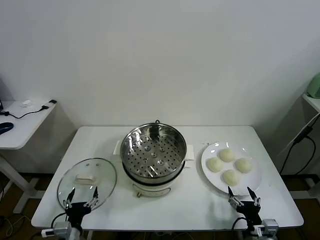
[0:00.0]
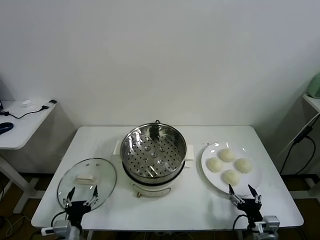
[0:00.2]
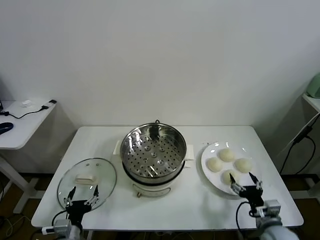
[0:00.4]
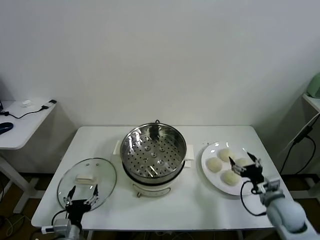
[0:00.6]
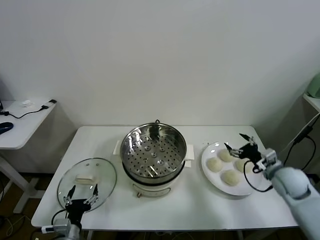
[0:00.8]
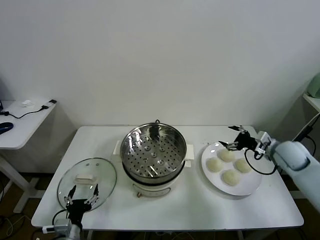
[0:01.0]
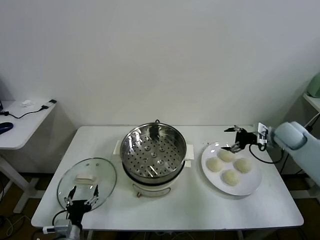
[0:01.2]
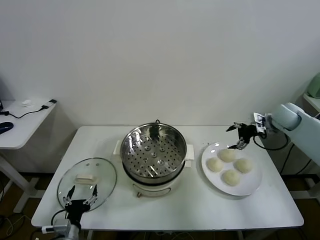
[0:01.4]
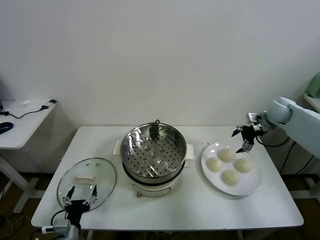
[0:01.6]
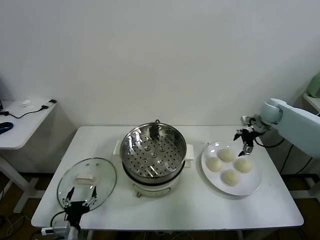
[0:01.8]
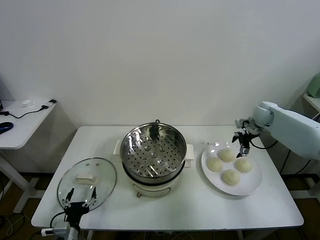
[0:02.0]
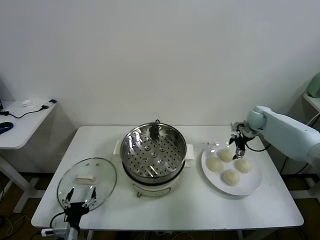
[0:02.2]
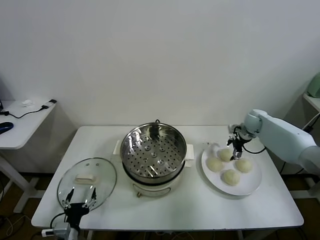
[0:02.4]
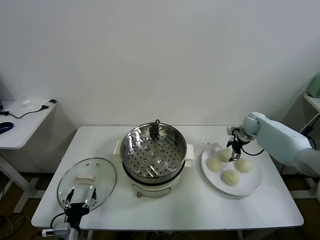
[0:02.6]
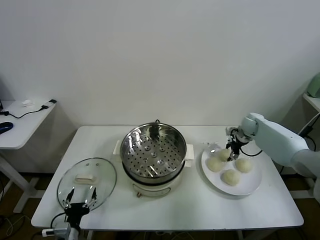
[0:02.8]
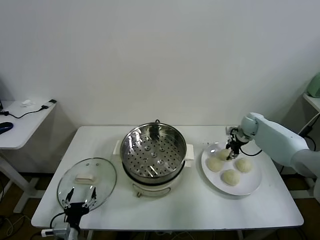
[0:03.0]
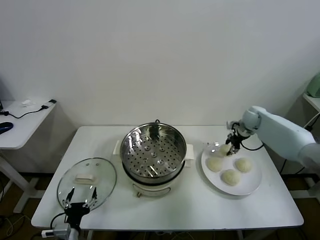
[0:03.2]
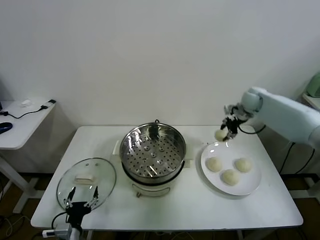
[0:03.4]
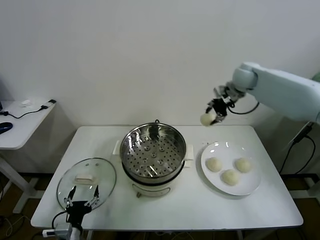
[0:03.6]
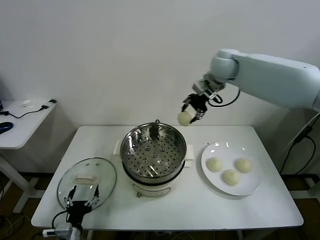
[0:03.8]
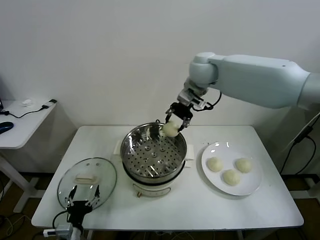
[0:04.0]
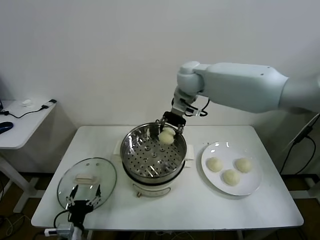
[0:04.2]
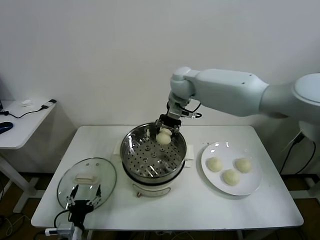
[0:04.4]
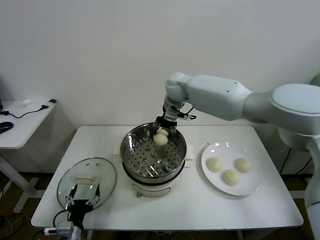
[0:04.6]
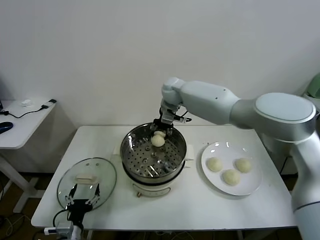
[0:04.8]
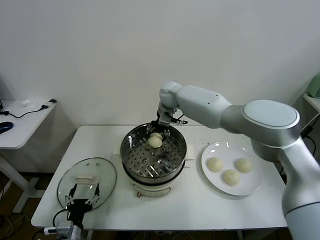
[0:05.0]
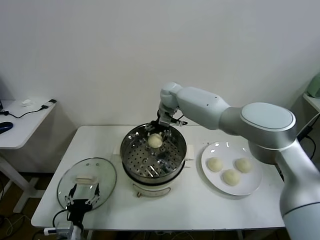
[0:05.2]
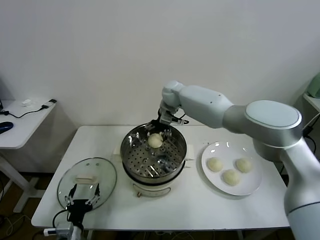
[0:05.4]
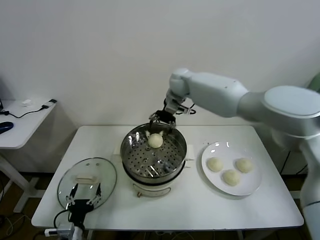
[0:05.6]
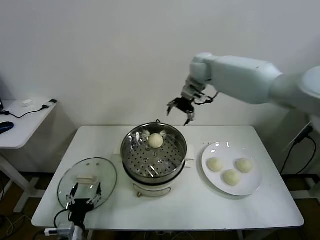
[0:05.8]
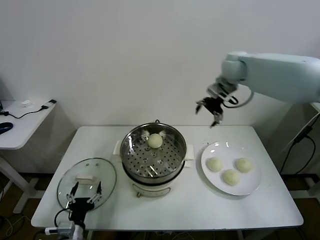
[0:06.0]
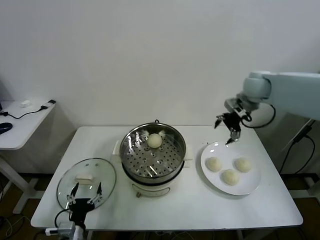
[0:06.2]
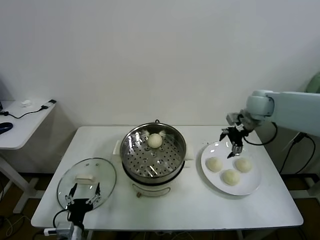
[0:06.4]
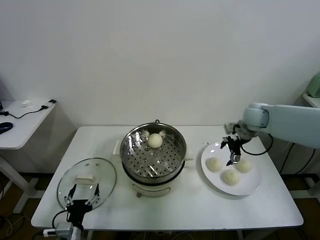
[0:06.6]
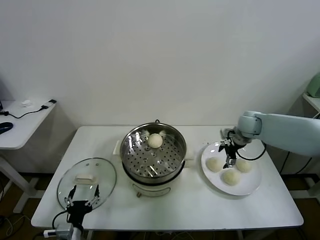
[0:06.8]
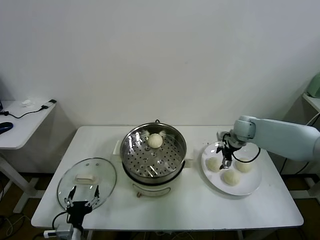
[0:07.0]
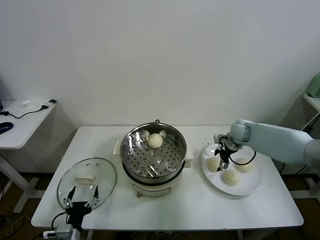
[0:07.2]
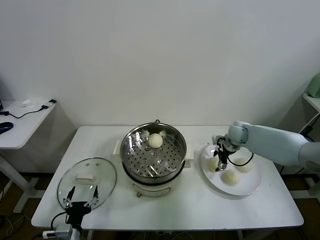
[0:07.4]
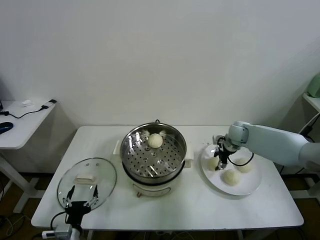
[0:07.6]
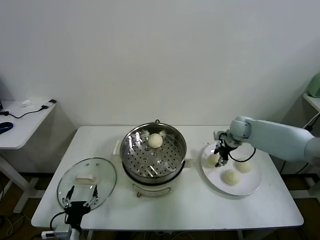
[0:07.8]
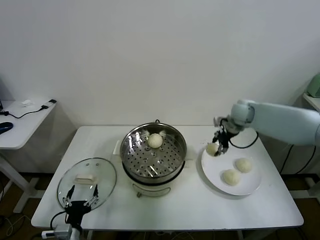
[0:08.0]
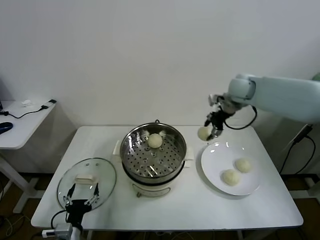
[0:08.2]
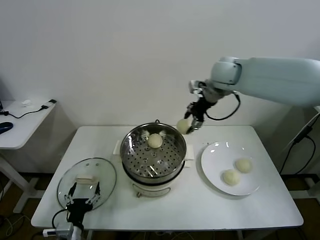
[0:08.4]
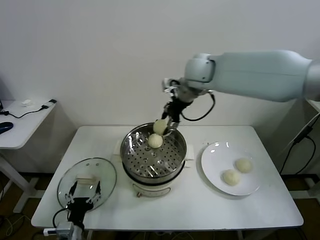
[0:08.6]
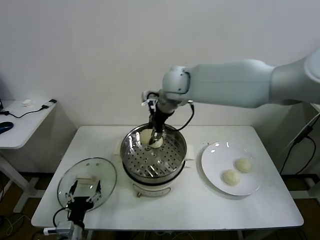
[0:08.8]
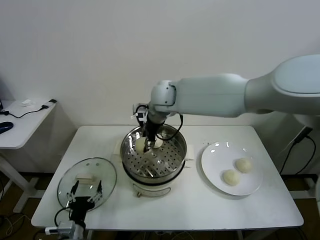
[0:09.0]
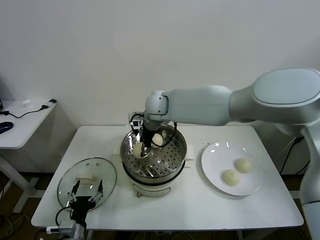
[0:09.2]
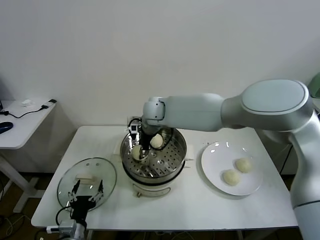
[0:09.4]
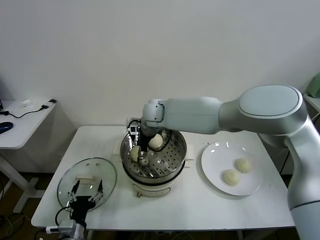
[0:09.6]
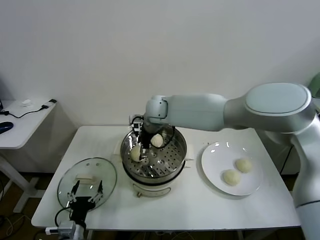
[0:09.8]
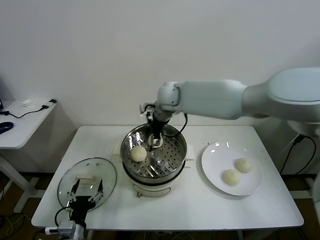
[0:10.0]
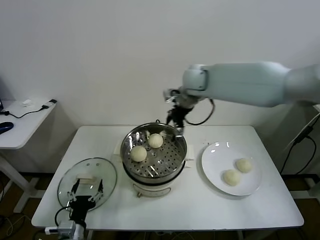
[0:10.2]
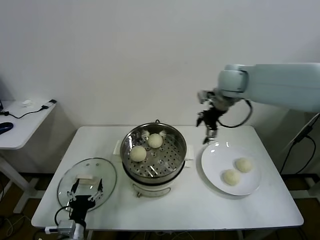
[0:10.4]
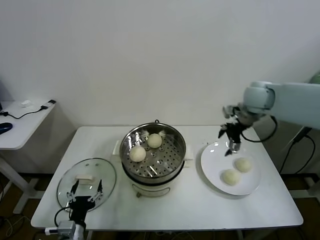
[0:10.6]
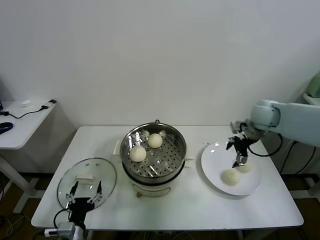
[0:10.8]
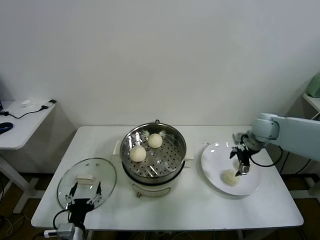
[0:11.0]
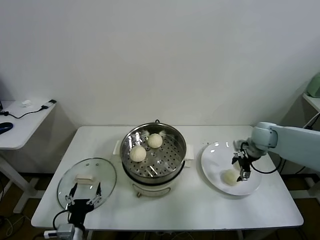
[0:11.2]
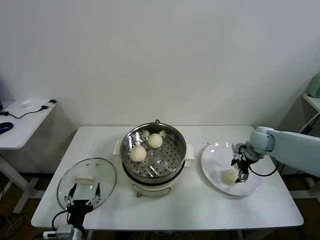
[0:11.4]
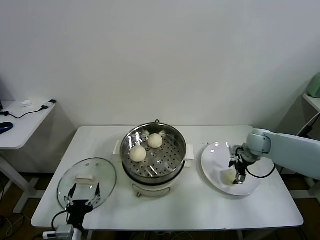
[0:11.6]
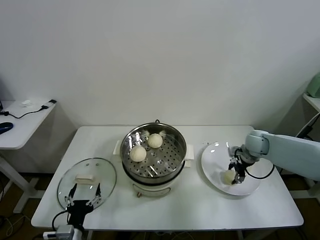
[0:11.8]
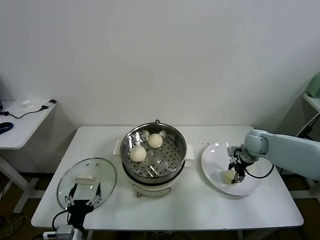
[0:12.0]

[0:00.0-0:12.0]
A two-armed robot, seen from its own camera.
Task of the whole recording: take steamed baozi put them in steamer.
Step, 0:00.0 to 0:02.8: Grasp the baozi in the plate with right gripper.
Step, 0:03.2 to 0:05.0: Place the baozi on the steamer with right gripper.
Step, 0:05.2 to 0:07.6: Grasp the baozi in the plate with right gripper.
Step, 0:07.8 to 0:09.6: Place the baozi on the steamer with right gripper.
Step, 0:09.8 to 0:11.8: Grasp the baozi in the plate with right gripper.
0:01.6 to 0:03.0: The right gripper goes roughly 10 cm downward, and closes its fingers.
0:03.0 to 0:04.4: The right gripper heads to the left and upward, covering approximately 35 cm.
0:04.4 to 0:06.0: The right gripper heads to the right, covering some 20 cm, and opens up.
0:06.0 to 0:07.6: The right gripper goes roughly 25 cm downward, and closes.
0:07.6 to 0:09.0: The right gripper goes approximately 35 cm to the left and upward.
0:09.0 to 0:10.4: The right gripper goes some 25 cm to the right, and opens up.
0:10.4 to 0:12.0: The right gripper is displaced downward and to the right by approximately 25 cm, and closes.

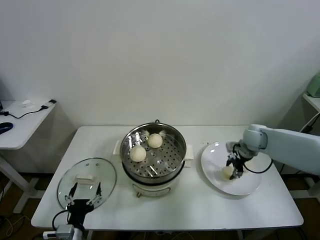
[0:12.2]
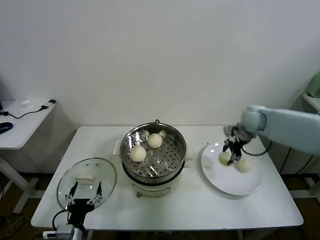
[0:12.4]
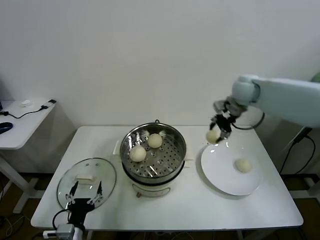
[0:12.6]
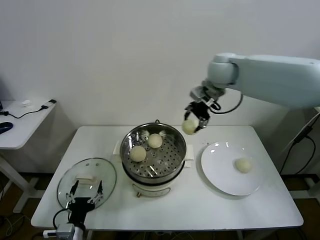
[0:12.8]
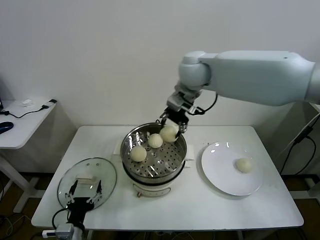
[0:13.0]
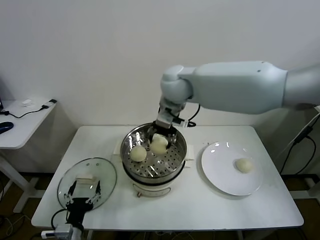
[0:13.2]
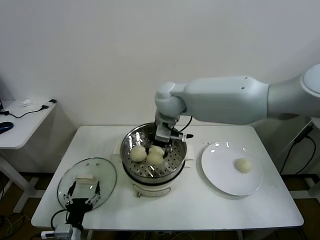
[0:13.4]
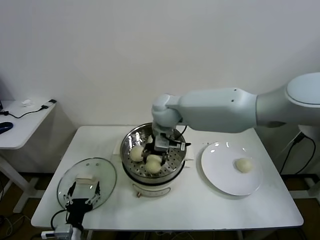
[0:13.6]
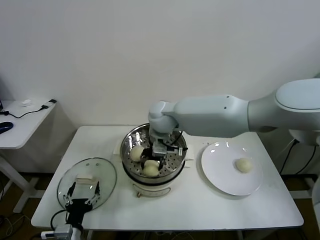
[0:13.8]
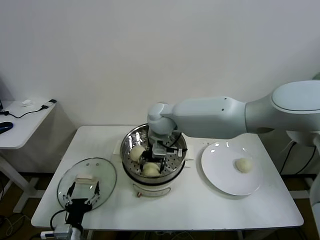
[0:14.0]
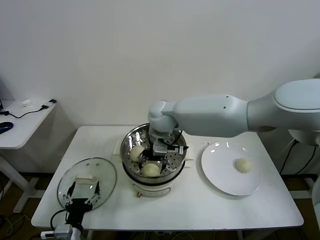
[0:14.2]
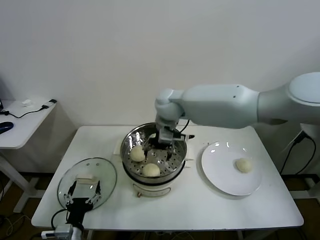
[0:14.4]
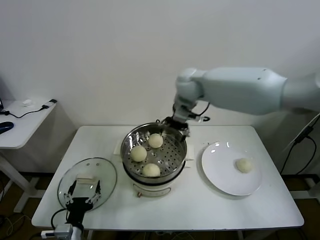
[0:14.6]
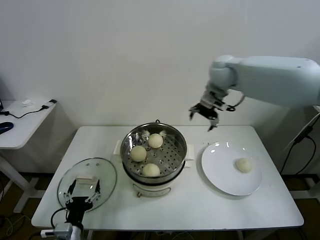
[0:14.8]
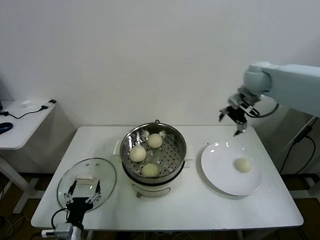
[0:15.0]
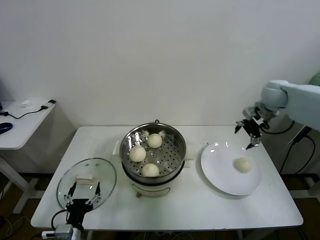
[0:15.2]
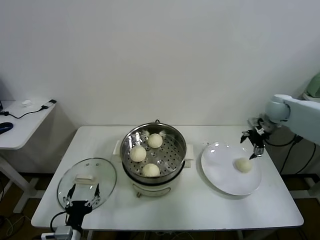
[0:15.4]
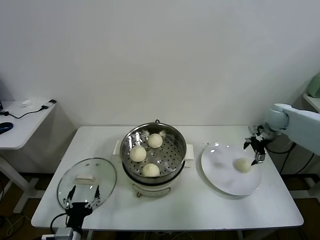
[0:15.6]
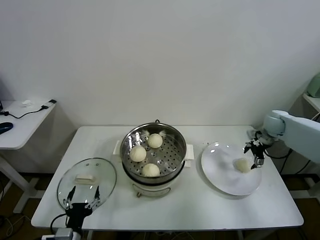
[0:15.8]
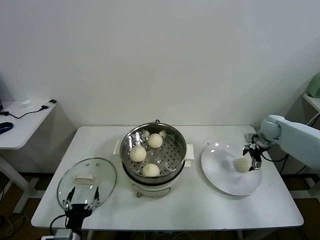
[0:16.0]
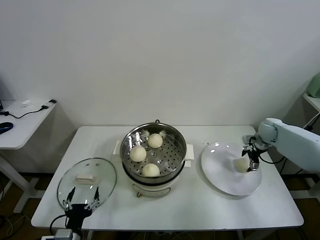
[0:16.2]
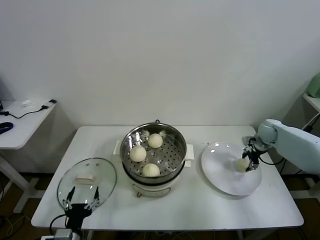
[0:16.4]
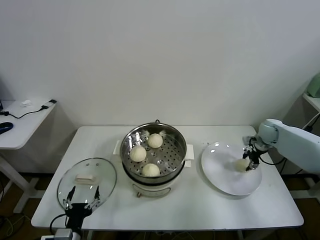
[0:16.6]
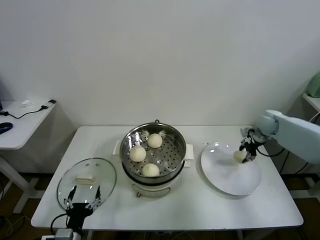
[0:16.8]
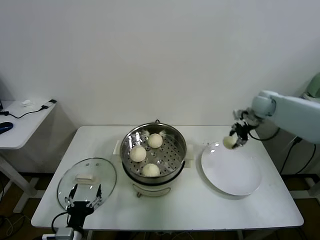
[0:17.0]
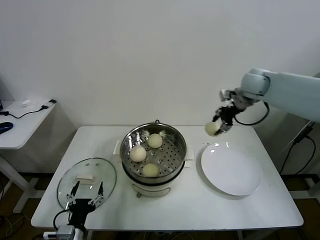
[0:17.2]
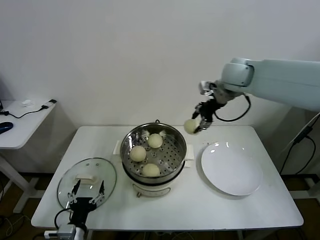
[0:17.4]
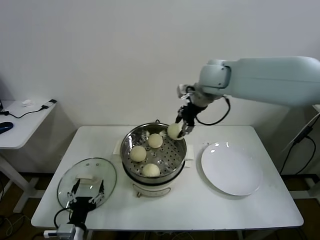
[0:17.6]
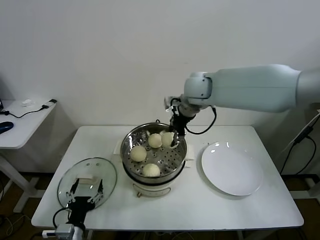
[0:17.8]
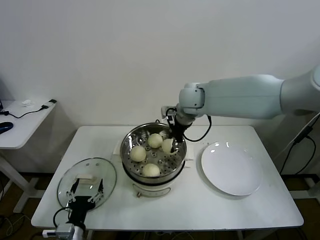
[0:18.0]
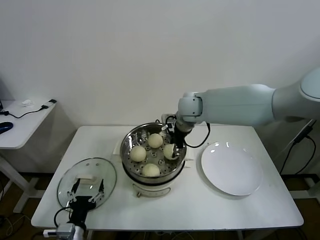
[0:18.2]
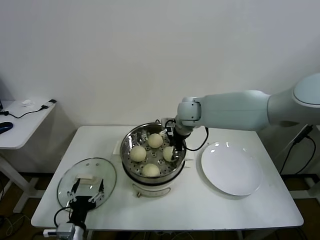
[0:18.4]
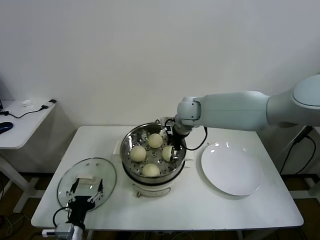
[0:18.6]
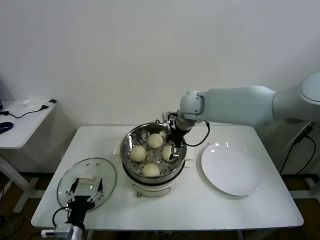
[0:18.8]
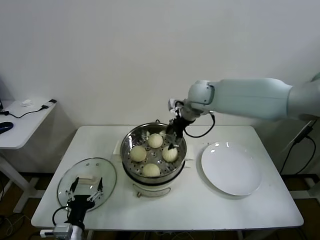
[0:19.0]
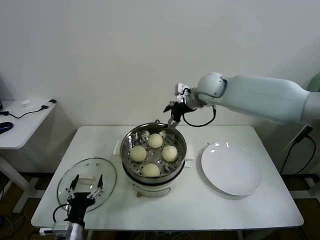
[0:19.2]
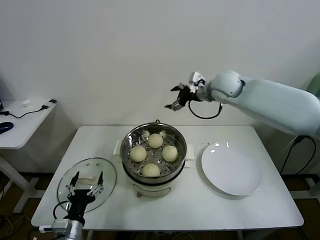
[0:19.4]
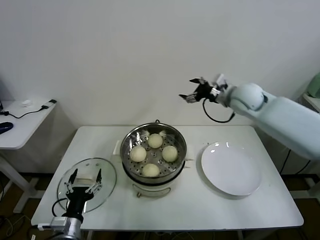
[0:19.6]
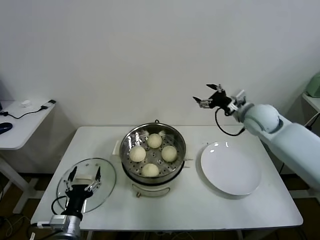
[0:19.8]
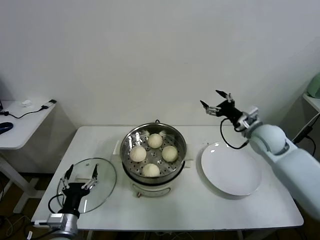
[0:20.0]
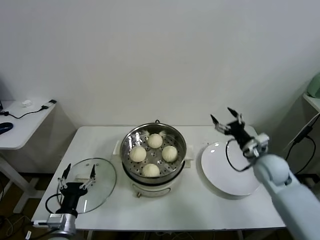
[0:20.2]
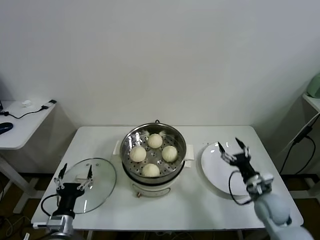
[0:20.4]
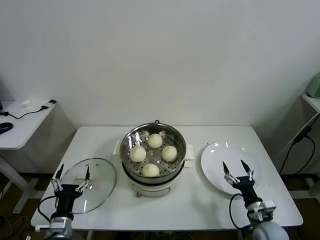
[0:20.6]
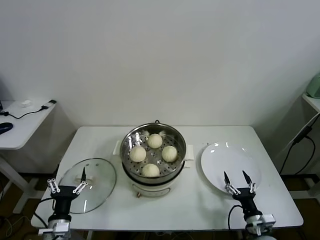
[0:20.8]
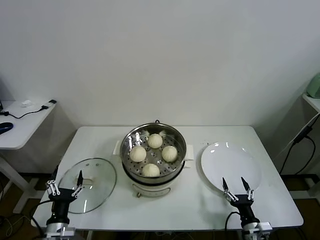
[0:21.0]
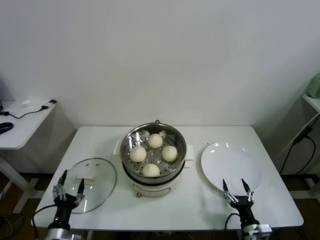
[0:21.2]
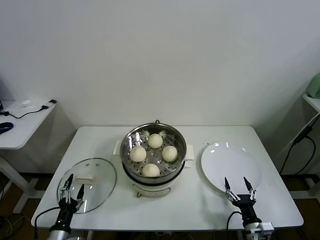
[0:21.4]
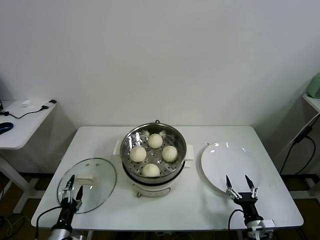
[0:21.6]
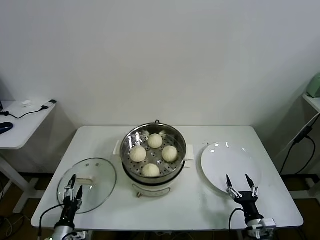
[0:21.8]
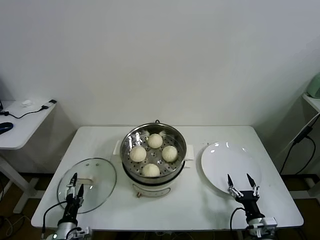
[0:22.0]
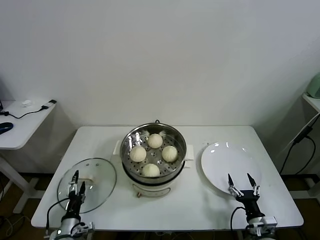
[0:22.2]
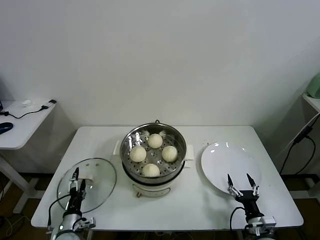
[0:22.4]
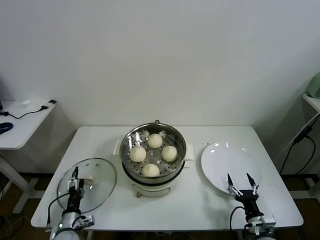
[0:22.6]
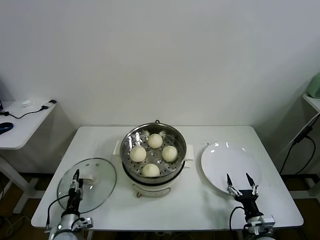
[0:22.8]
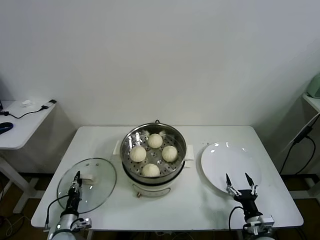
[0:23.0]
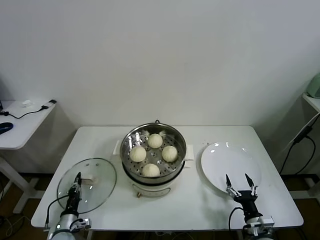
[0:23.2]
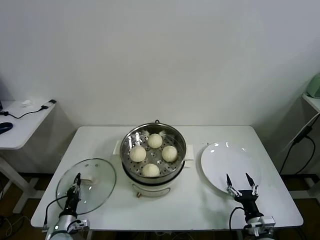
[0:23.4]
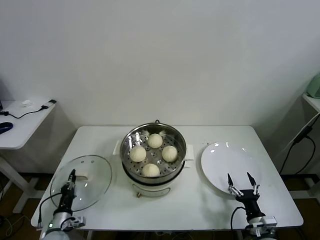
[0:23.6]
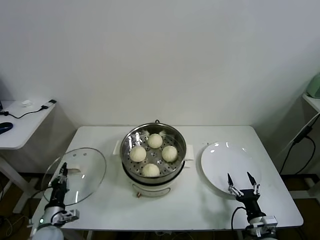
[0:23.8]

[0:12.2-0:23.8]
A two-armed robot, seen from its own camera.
Task of the whole recording: take steamed baozi put them in steamer.
Step, 0:12.2 to 0:14.2: Place the baozi on the steamer with right gripper.
Step, 0:14.4 to 0:16.4: Grasp the baozi in the plate with right gripper.
Step, 0:16.6 to 0:18.6: Place the baozi on the steamer with right gripper.
Step, 0:18.8 to 0:23.4: Grasp the pot lid with left gripper.
0:12.2 to 0:13.6: The right gripper is displaced to the left by roughly 35 cm.
0:13.6 to 0:15.0: The right gripper is displaced to the right by roughly 30 cm, and opens.
0:15.0 to 0:16.6: The right gripper moves downward and to the right, approximately 25 cm, and closes.
0:16.6 to 0:18.0: The right gripper is displaced to the left and upward by some 40 cm.
0:18.0 to 0:19.4: The right gripper travels to the right by roughly 10 cm, and opens up.
0:19.4 to 0:21.0: The left gripper is displaced to the left by about 5 cm. Meanwhile the right gripper goes about 60 cm downward and backward.
0:21.0 to 0:22.4: The left gripper heads downward, covering about 10 cm.
0:22.4 to 0:23.8: The left gripper moves approximately 5 cm, and closes up.
